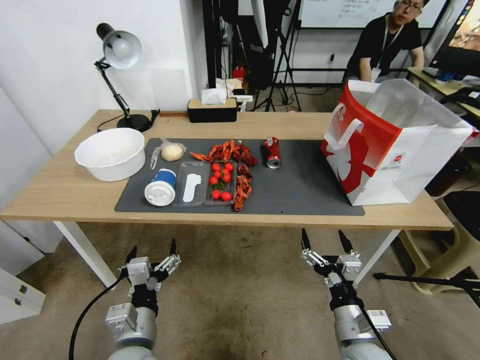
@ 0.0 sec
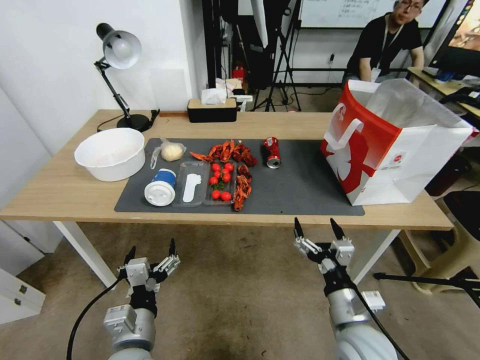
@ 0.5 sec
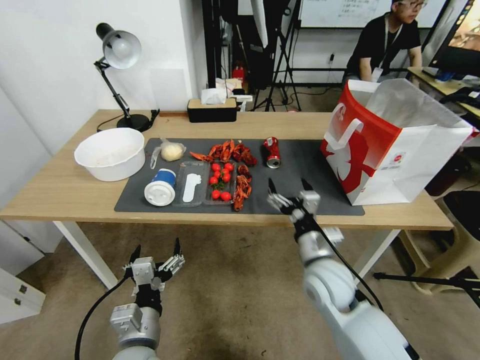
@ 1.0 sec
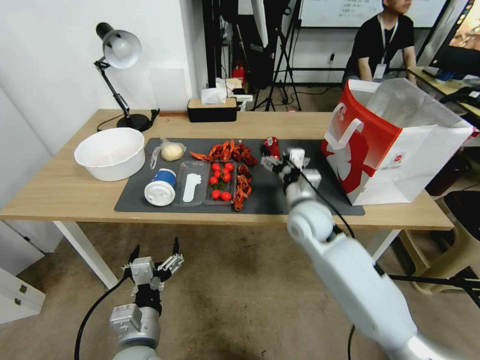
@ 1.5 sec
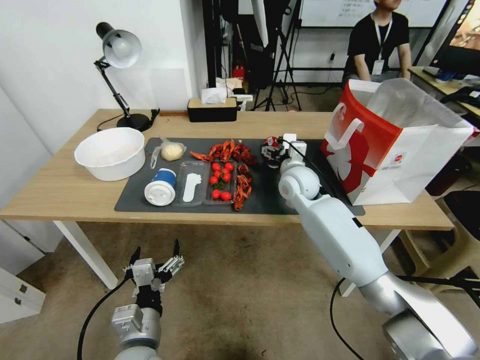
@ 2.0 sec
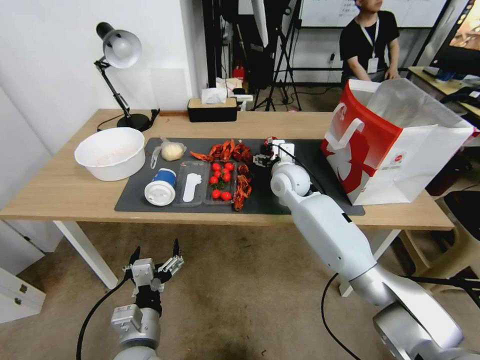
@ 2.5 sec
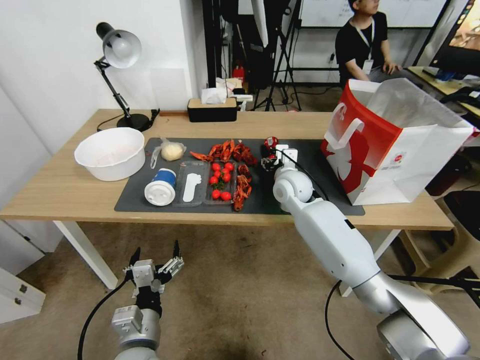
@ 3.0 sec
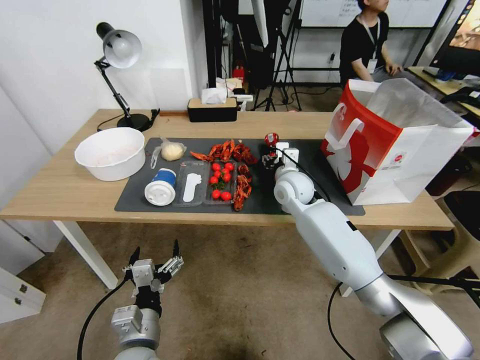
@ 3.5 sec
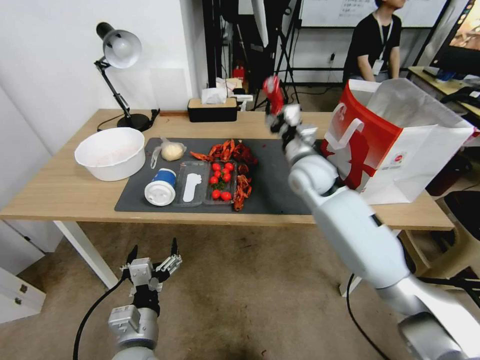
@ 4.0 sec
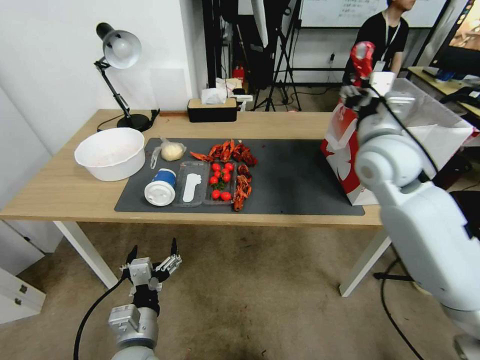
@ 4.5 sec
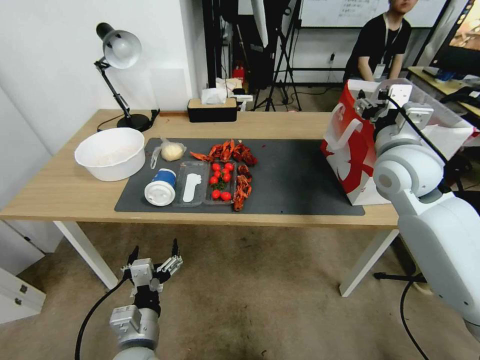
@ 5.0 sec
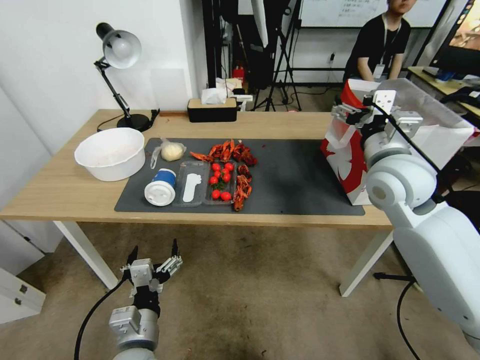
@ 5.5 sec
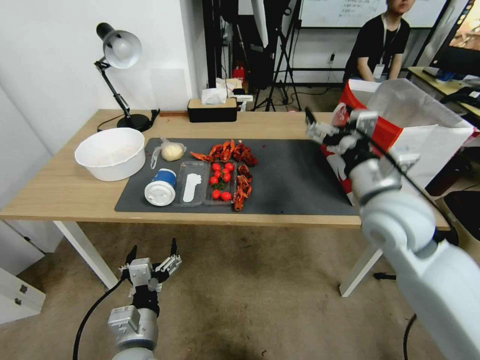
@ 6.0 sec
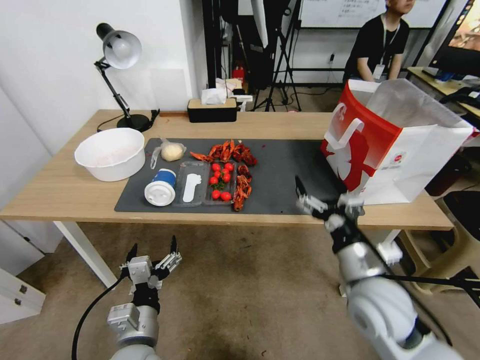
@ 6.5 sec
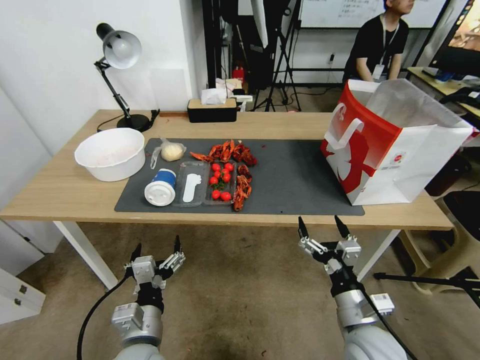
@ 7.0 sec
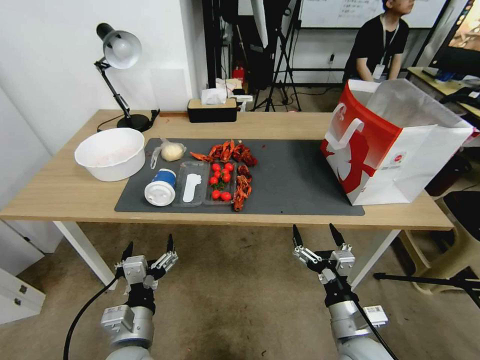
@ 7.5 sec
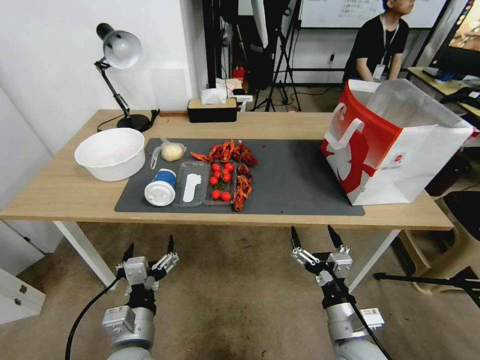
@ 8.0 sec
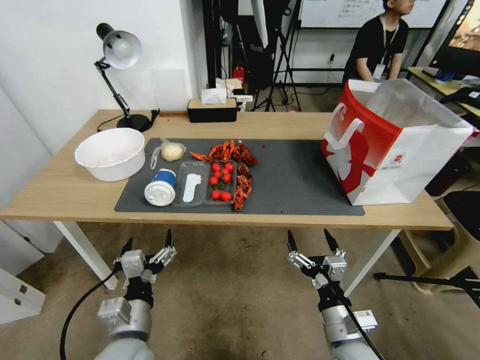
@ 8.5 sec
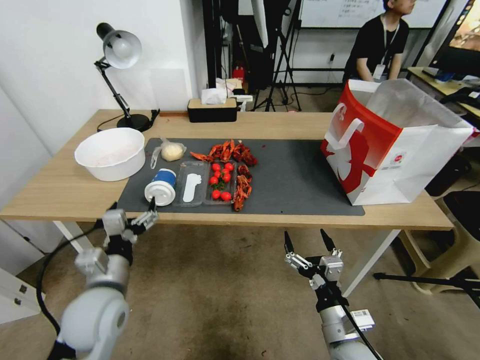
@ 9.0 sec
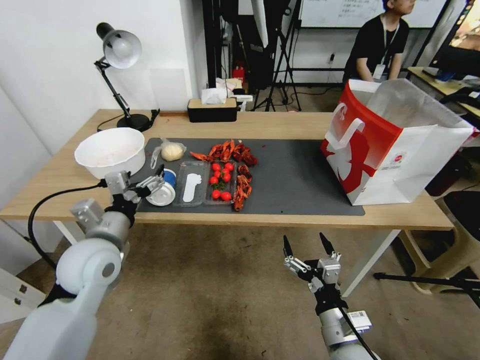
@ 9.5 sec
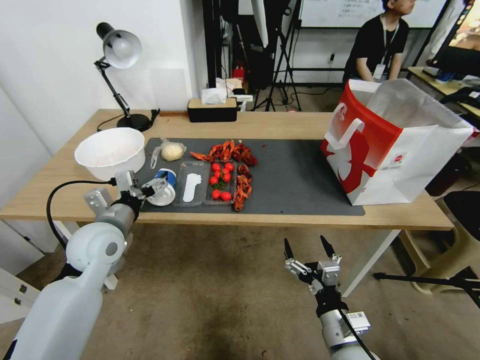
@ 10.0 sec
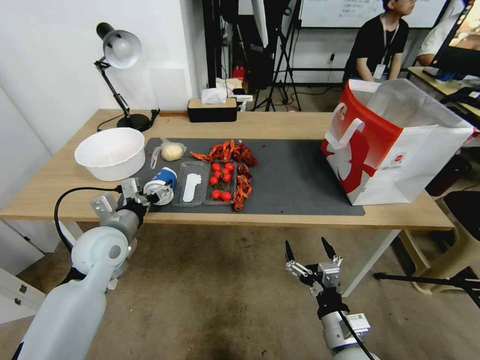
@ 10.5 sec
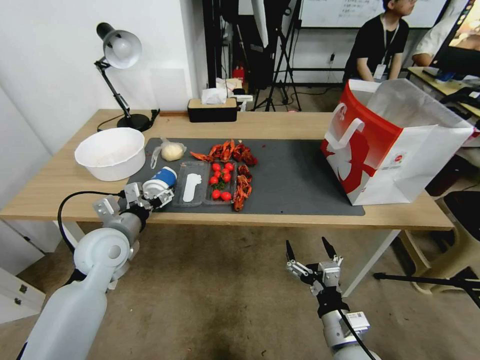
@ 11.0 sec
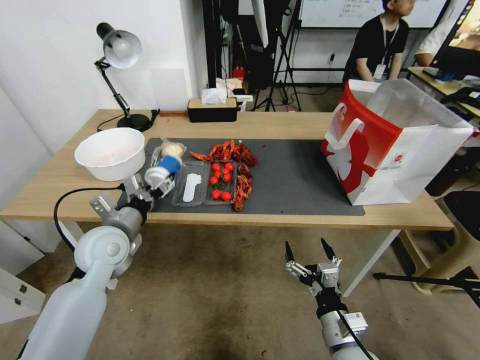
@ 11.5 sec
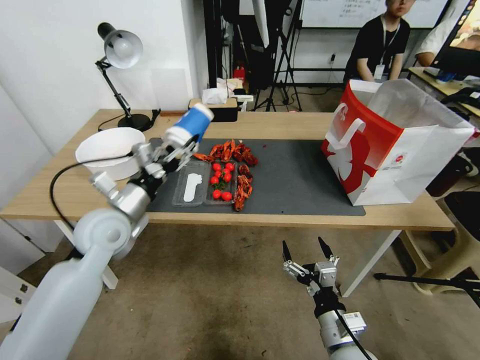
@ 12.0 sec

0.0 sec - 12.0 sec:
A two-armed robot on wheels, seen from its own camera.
0.0 sec - 2.0 sec: The right gripper travels forward and upward by about 30 cm.
2.0 sec - 4.0 sec: The right gripper shifts approximately 5 cm forward, and closes.
4.0 sec - 6.0 sec: The right gripper goes roughly 20 cm backward, upward and to the right, and opens its fingers.
6.0 sec - 8.0 sec: The right gripper shifts about 30 cm downward and backward.
8.0 sec - 10.0 sec: The left gripper travels forward, upward and to the left by roughly 25 cm.
10.0 sec - 12.0 sec: The left gripper closes.

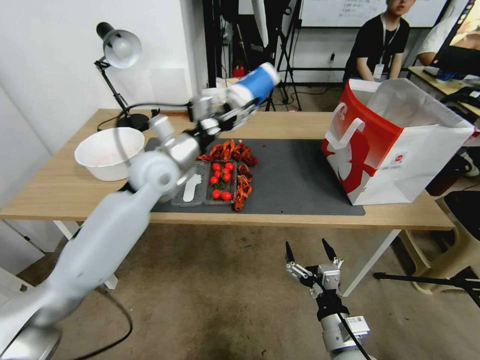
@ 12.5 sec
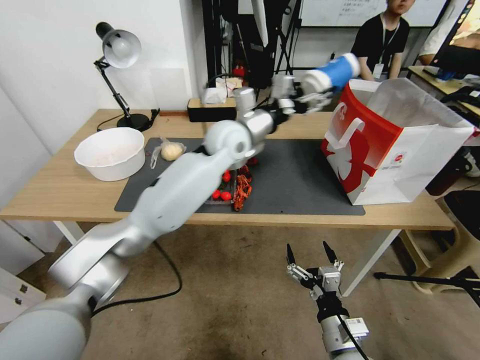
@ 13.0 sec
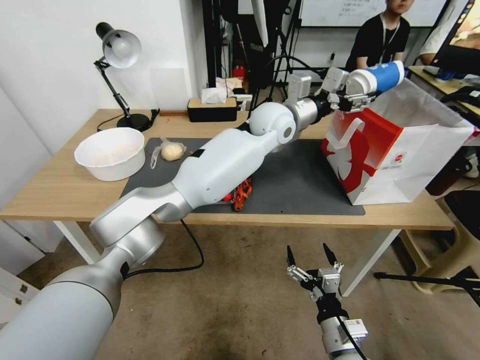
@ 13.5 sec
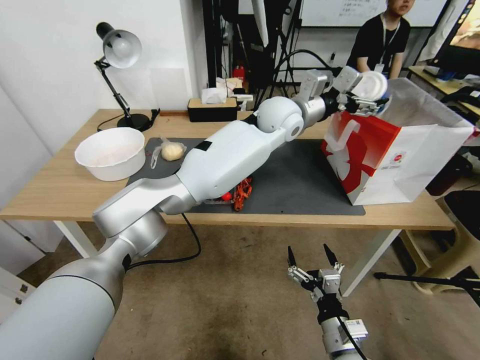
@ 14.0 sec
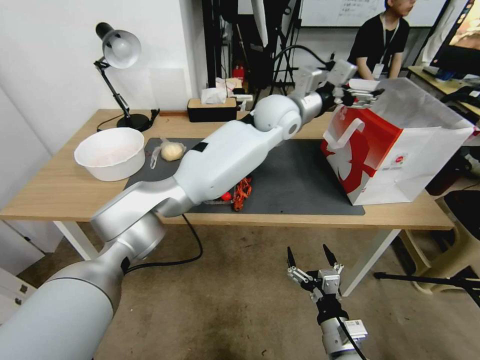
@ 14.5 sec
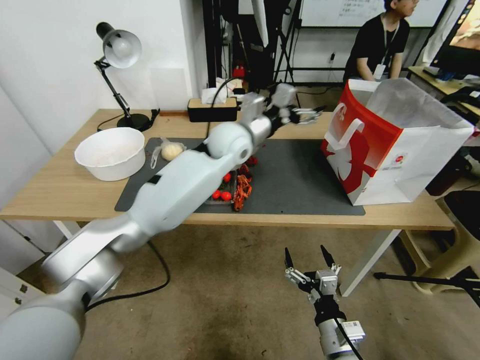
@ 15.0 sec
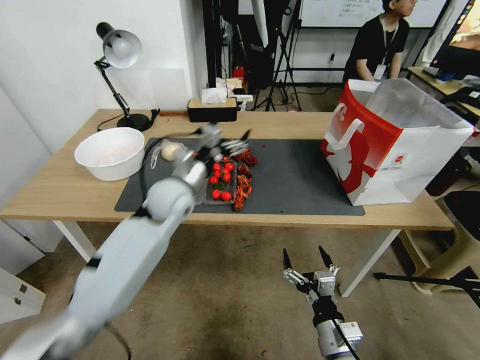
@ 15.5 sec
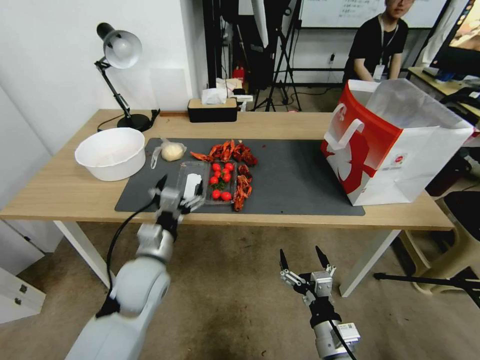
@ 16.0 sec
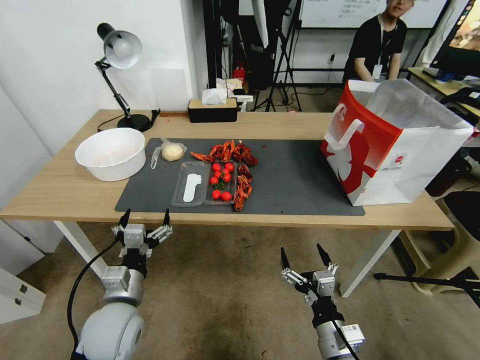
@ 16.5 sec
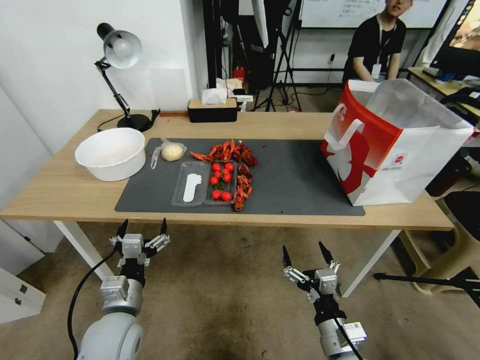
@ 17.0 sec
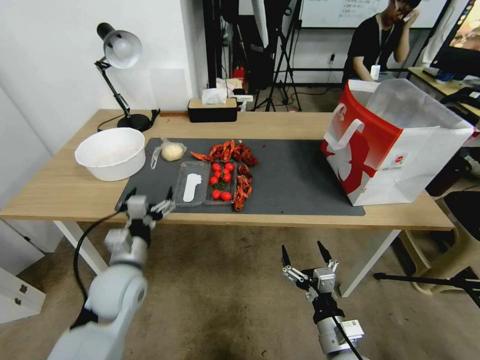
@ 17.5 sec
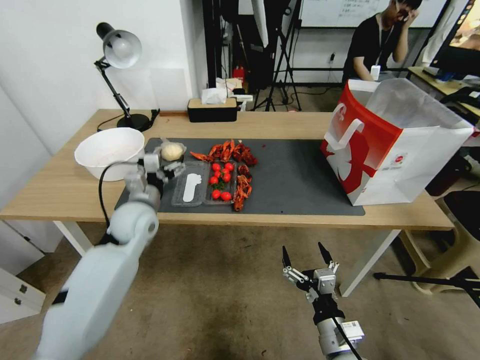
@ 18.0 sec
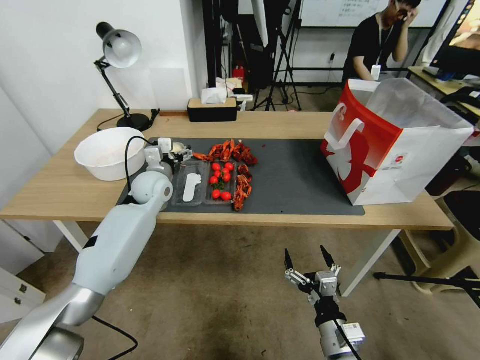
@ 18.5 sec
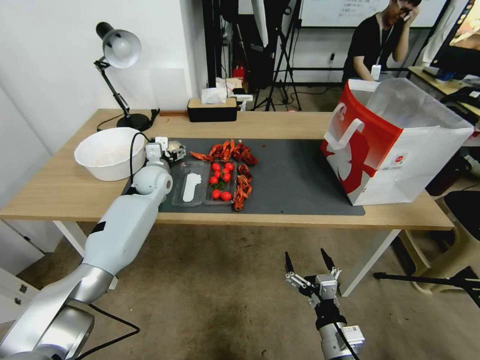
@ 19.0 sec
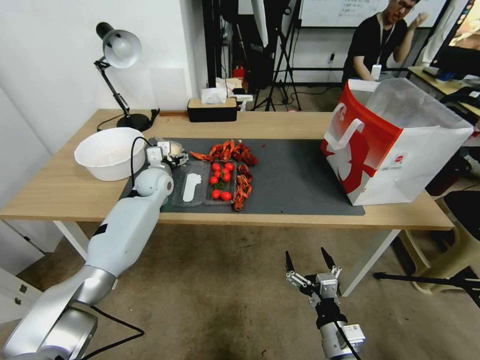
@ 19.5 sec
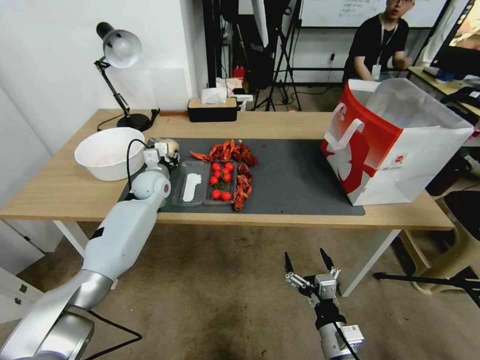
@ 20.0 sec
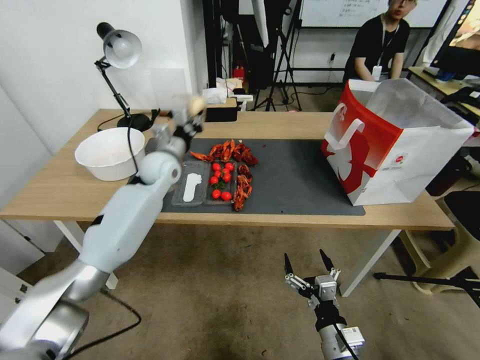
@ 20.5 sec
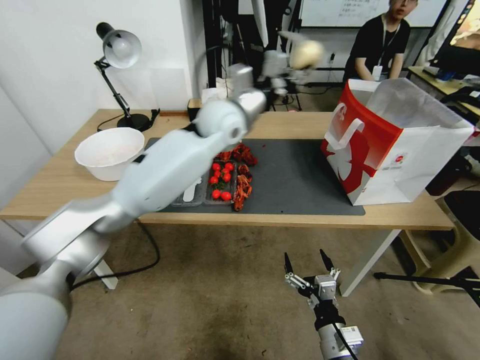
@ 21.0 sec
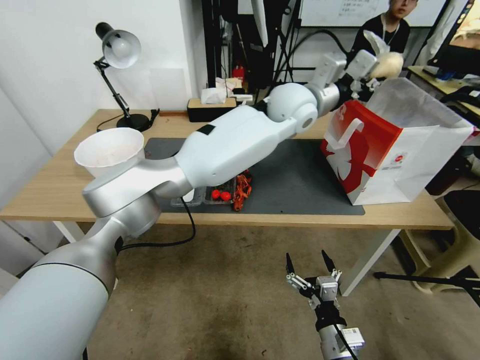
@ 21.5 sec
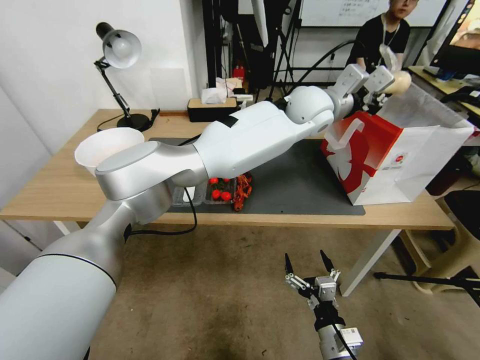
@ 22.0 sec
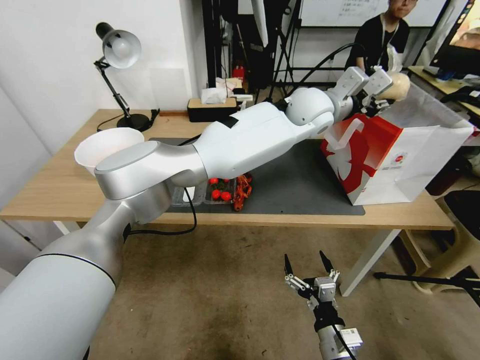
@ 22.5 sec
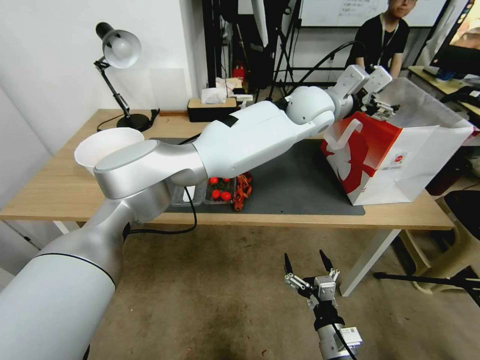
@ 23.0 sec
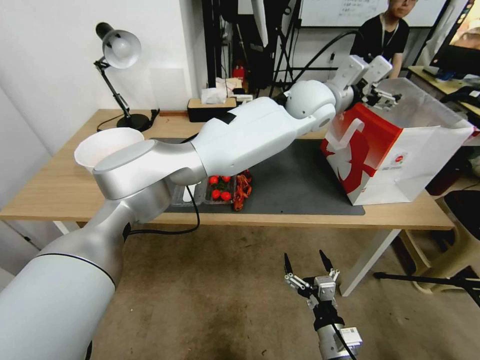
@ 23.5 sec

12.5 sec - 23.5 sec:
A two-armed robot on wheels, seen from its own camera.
12.5 sec - 14.5 sec: The left gripper goes approximately 30 cm to the right and forward, and opens.
14.5 sec - 16.0 sec: The left gripper moves to the left, backward and downward, roughly 40 cm.
16.0 sec - 18.0 sec: The left gripper heads forward, covering approximately 15 cm.
18.0 sec - 20.0 sec: The left gripper shifts about 10 cm forward, and closes its fingers.
20.0 sec - 21.5 sec: The left gripper is displaced to the right and upward by approximately 40 cm, and closes.
21.5 sec - 23.5 sec: The left gripper moves to the right, approximately 10 cm, and opens its fingers.

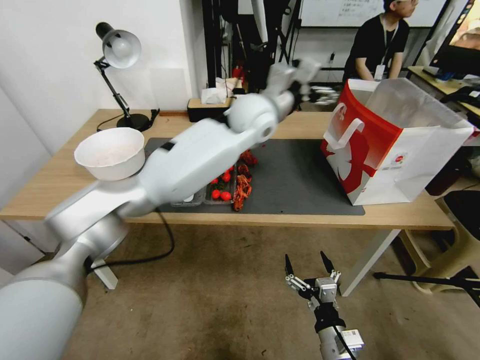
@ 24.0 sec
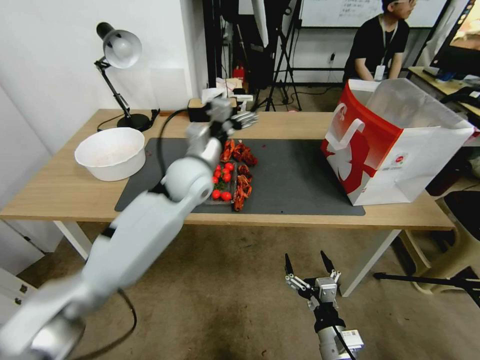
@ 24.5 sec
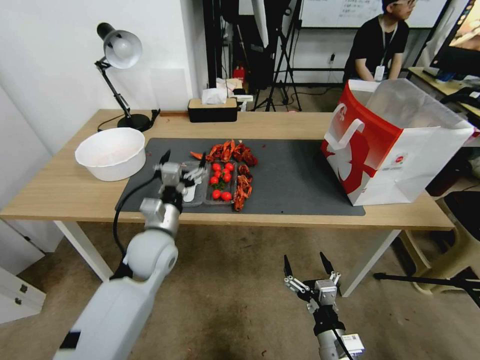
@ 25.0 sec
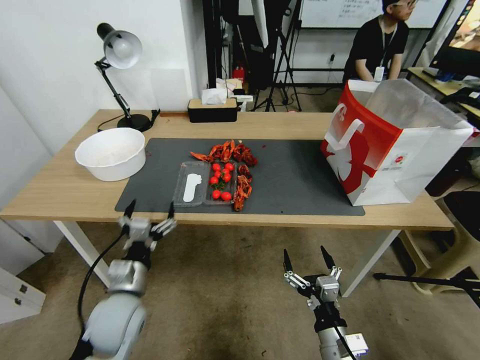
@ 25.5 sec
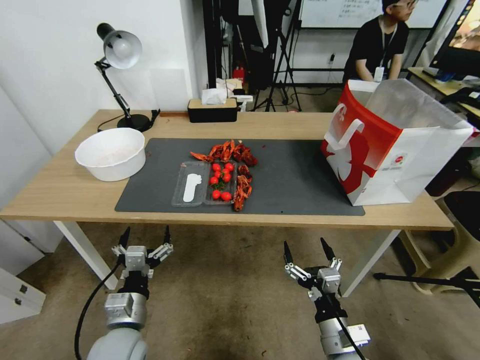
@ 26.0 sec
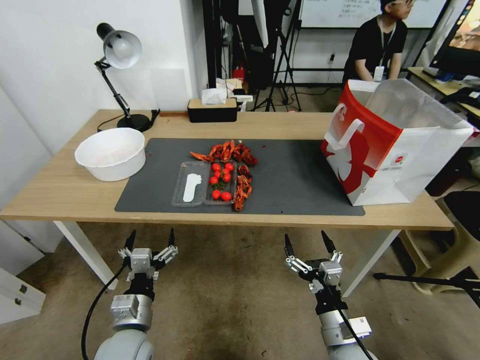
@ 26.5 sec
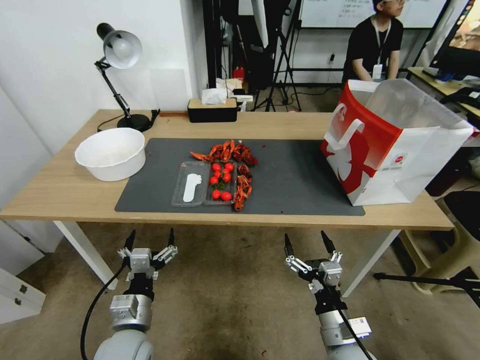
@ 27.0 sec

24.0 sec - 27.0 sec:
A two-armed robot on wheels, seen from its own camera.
24.0 sec - 25.5 sec: The left gripper moves backward, downward and to the left, roughly 50 cm.
25.5 sec - 27.0 sec: The left gripper moves backward, approximately 5 cm.
